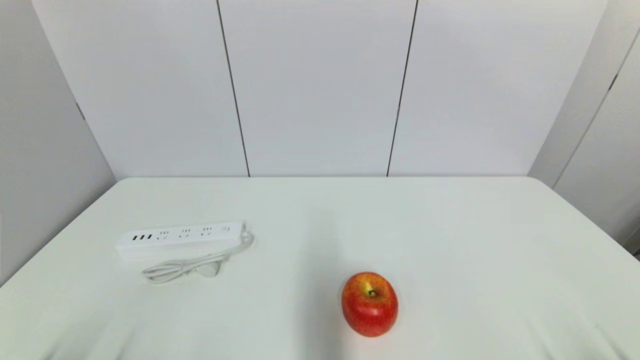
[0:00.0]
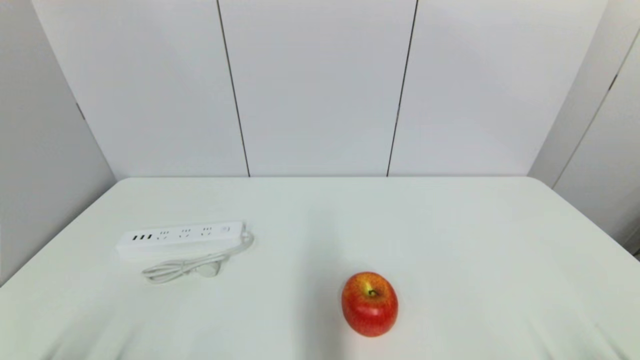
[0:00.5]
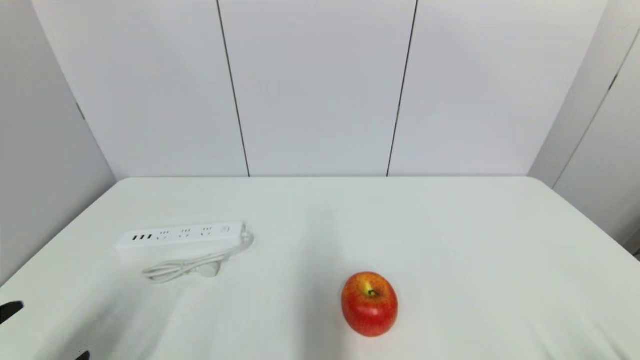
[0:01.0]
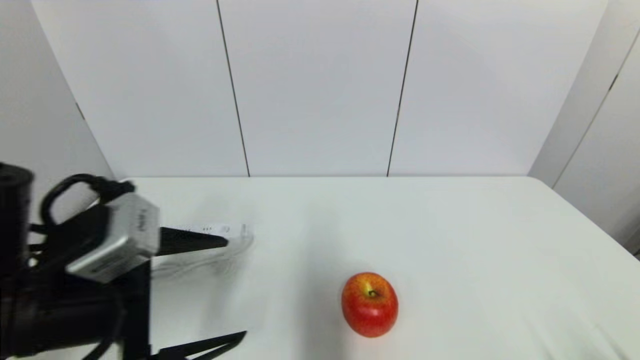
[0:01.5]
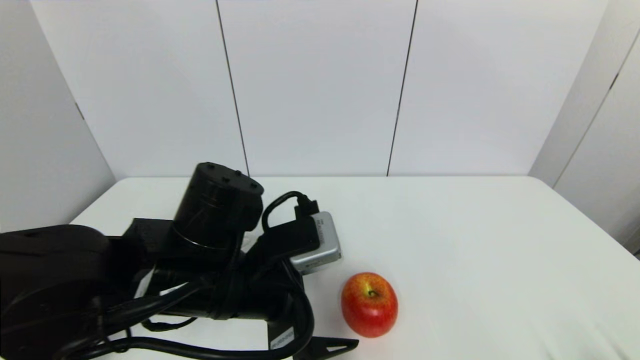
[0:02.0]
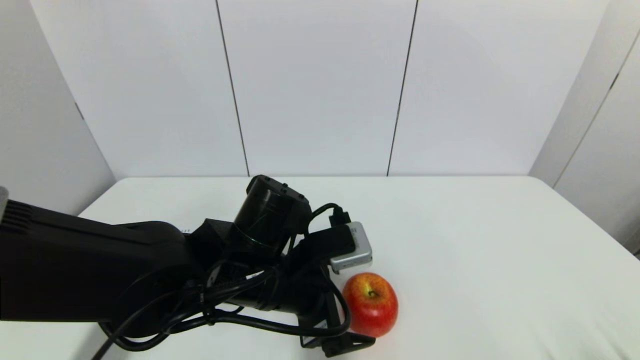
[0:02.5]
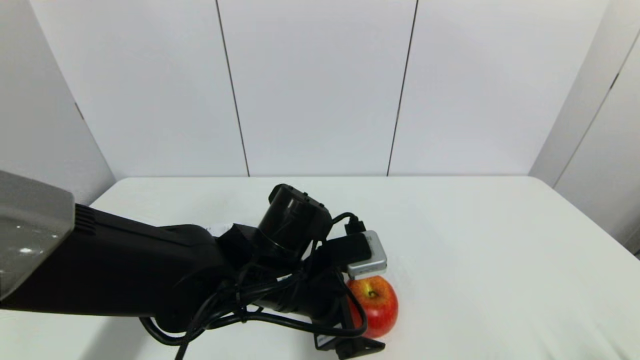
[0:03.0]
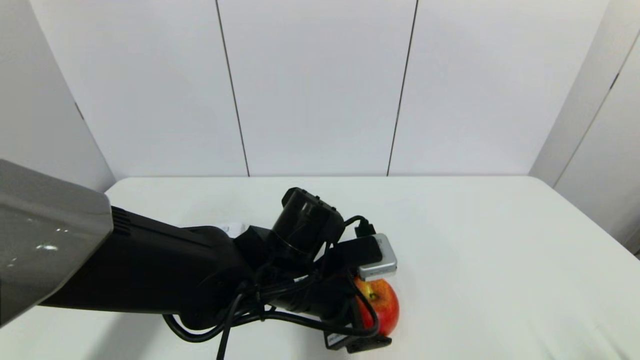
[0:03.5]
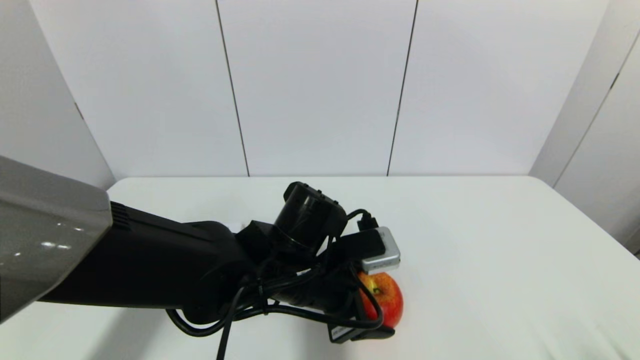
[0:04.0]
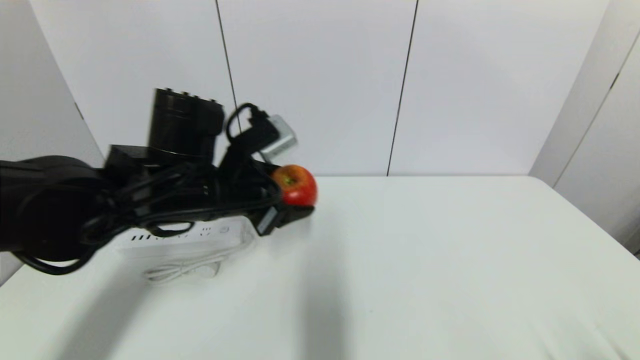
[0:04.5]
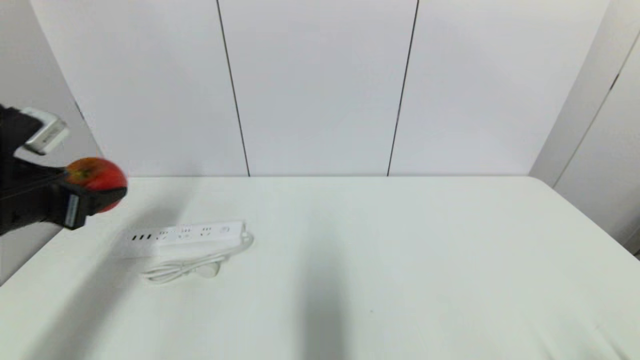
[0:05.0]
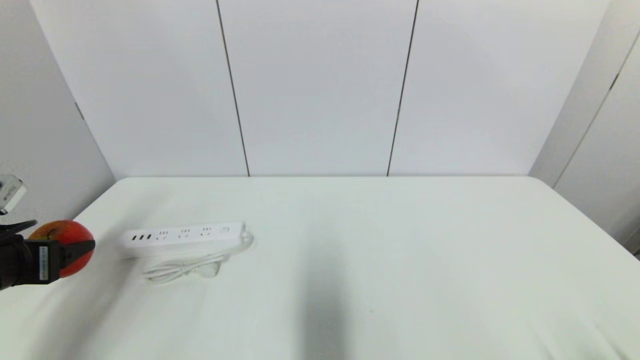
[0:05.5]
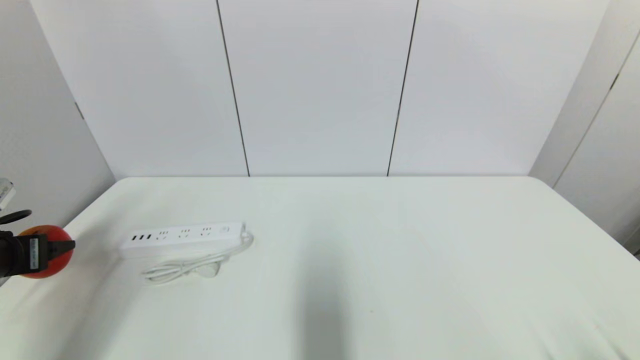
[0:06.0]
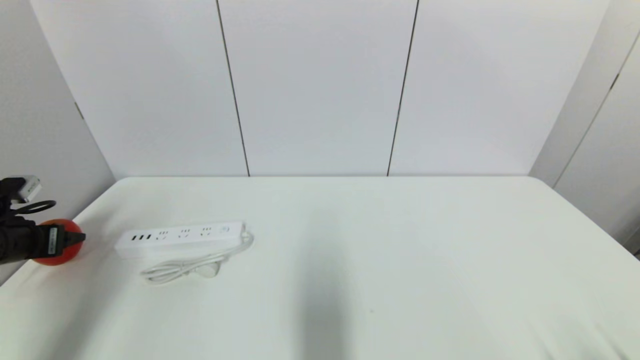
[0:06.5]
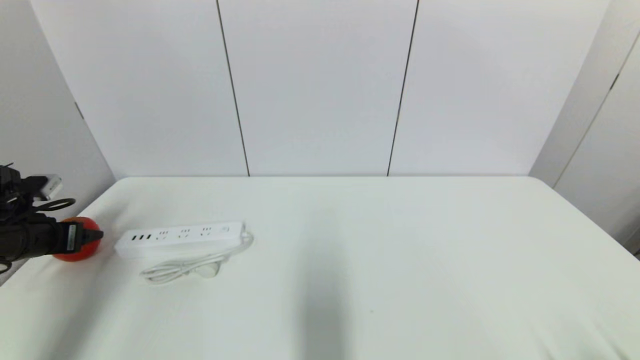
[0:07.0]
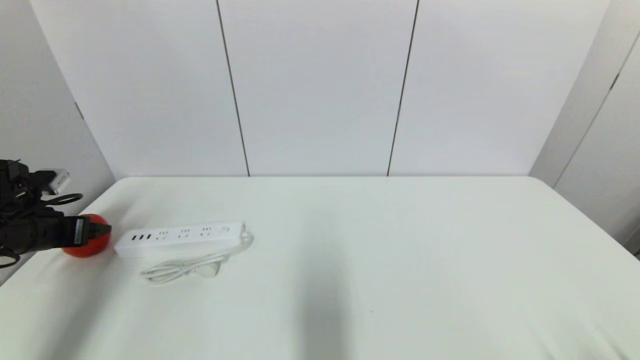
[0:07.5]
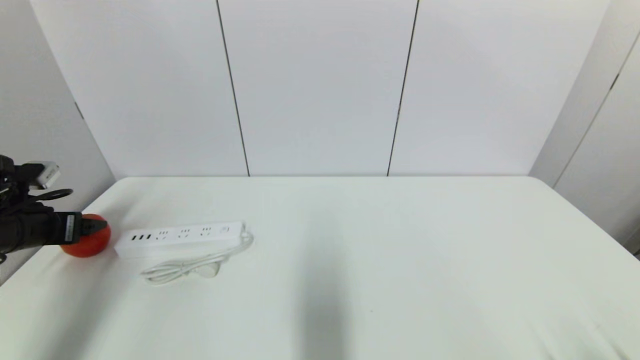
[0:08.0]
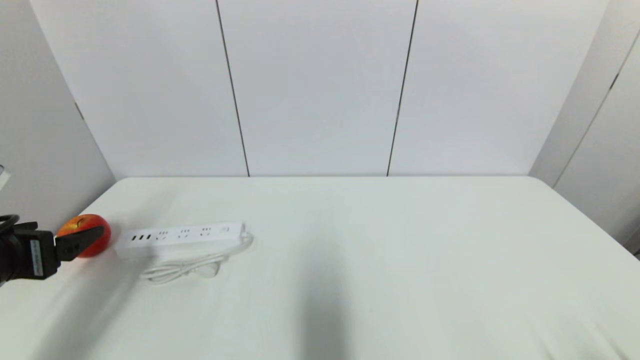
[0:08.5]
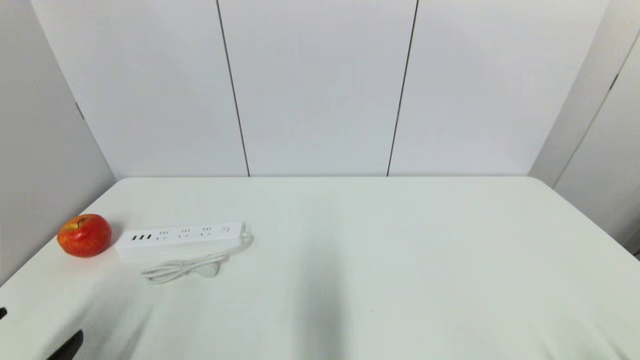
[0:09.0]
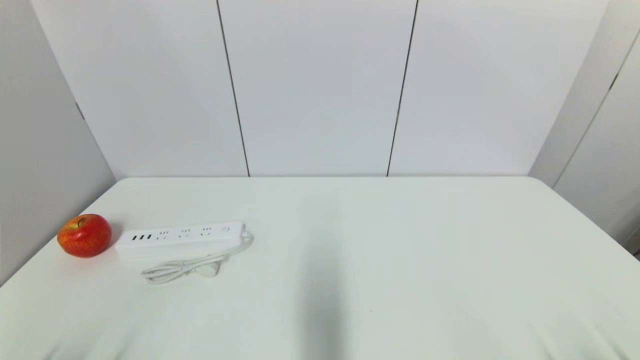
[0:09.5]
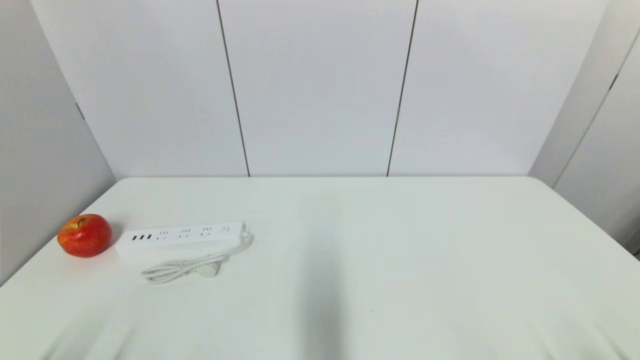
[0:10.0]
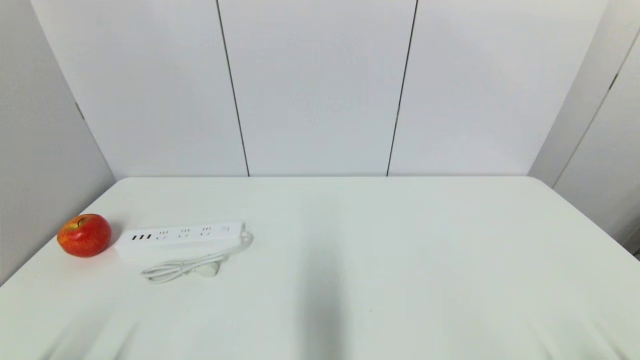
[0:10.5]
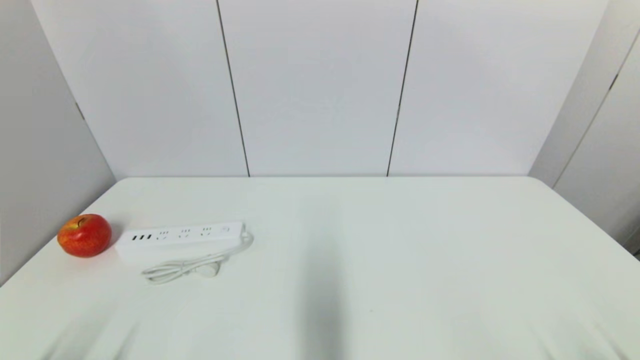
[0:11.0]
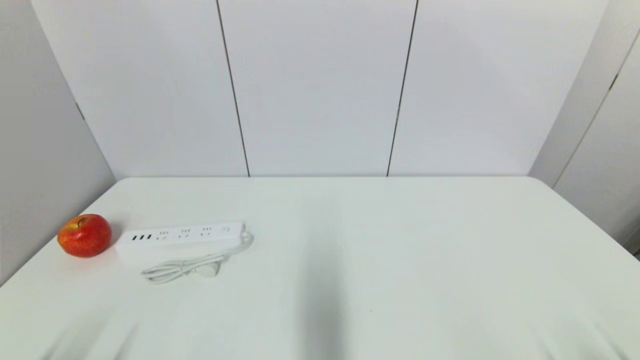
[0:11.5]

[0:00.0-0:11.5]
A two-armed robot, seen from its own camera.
Task of the whole recording: put the apple in the designated position.
Step, 0:01.0 to 0:03.5: Grasp the apple with left gripper.
Step, 0:04.0 to 0:08.5: Place the apple on the table with left gripper.
0:00.0 to 0:02.0: The left gripper travels to the right, forward and upward by roughly 30 cm.
0:02.0 to 0:04.0: The left gripper shifts about 5 cm to the right, and closes its fingers.
0:04.0 to 0:06.0: The left gripper goes about 40 cm to the left.
0:06.0 to 0:07.5: The left gripper is displaced forward by some 10 cm, and opens up.
0:07.5 to 0:09.5: The left gripper goes roughly 30 cm backward, and opens its fingers.
0:09.5 to 0:11.5: The two grippers keep their place.

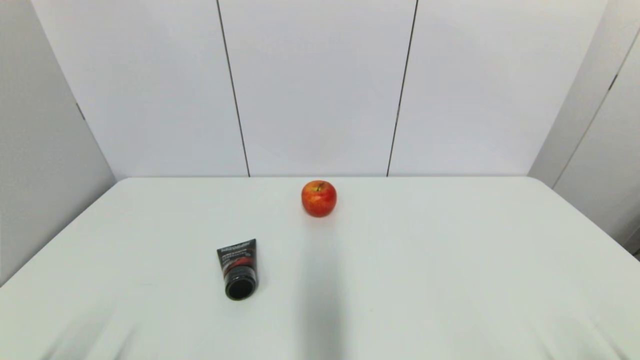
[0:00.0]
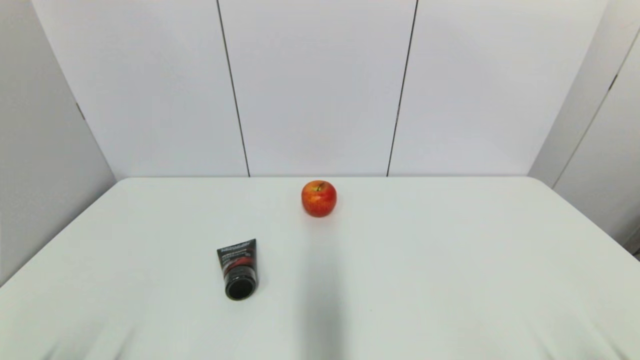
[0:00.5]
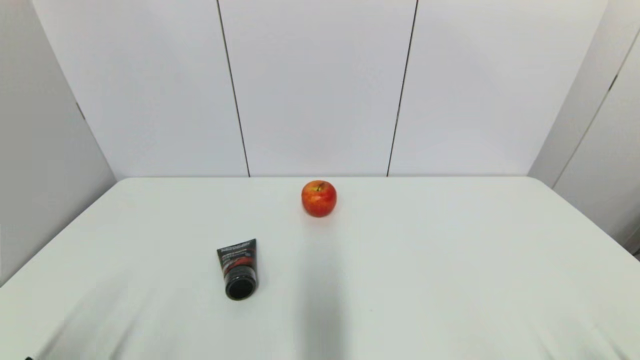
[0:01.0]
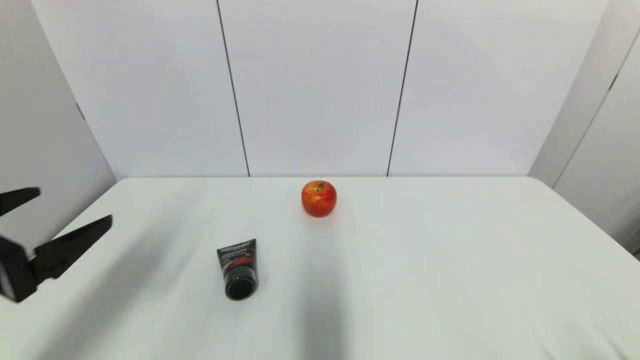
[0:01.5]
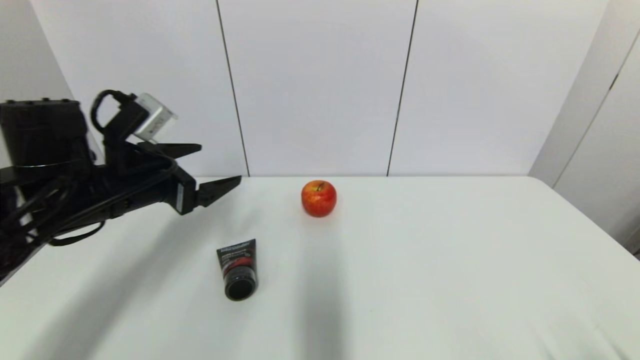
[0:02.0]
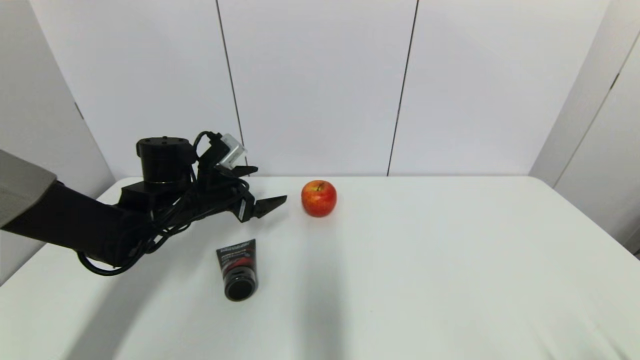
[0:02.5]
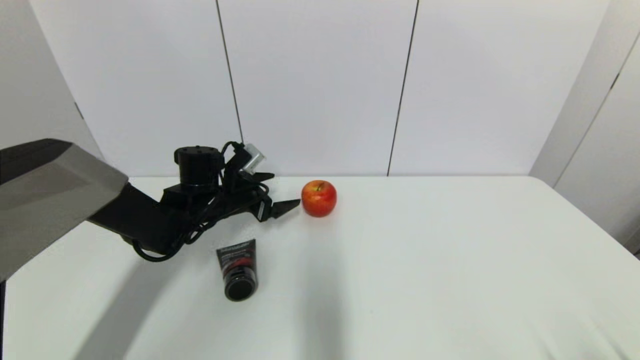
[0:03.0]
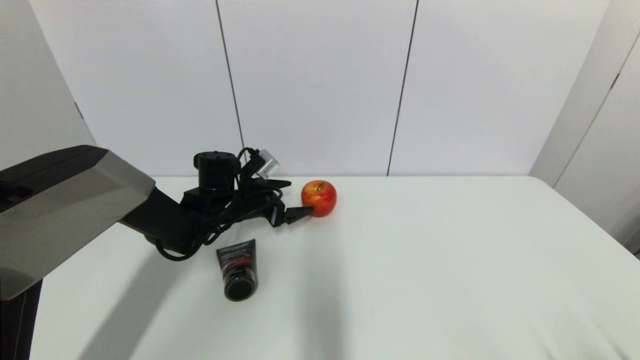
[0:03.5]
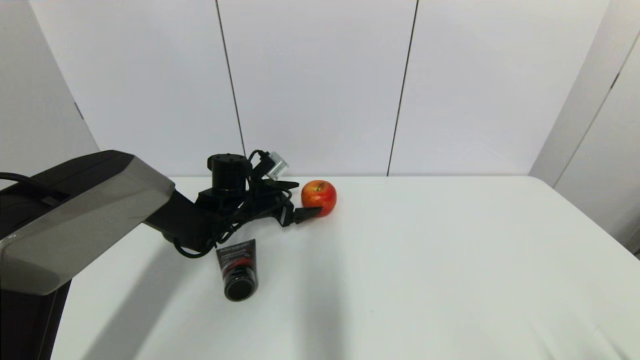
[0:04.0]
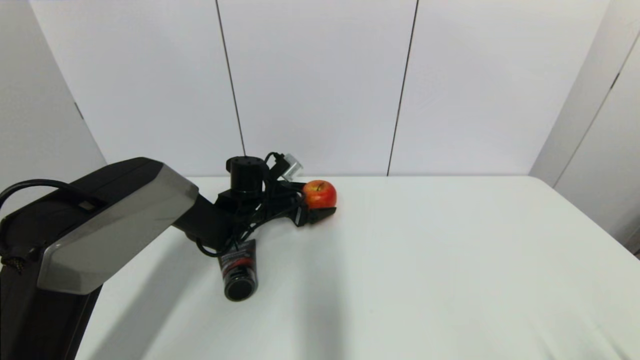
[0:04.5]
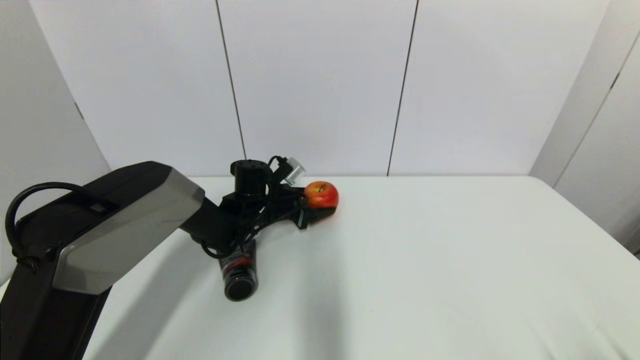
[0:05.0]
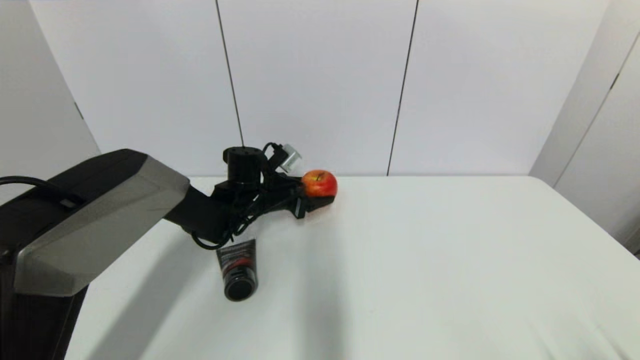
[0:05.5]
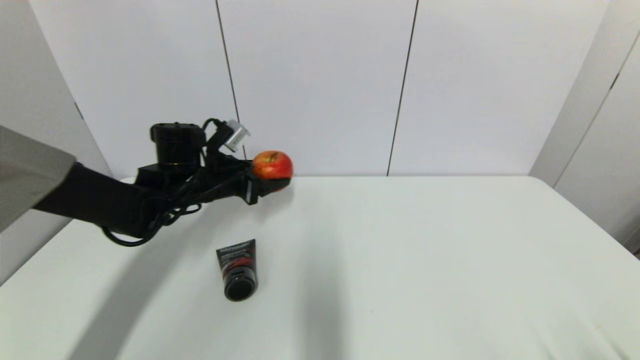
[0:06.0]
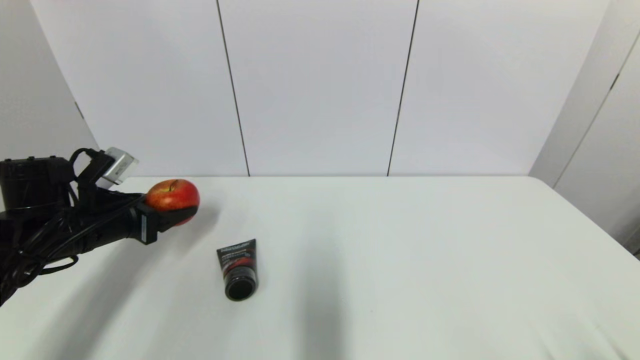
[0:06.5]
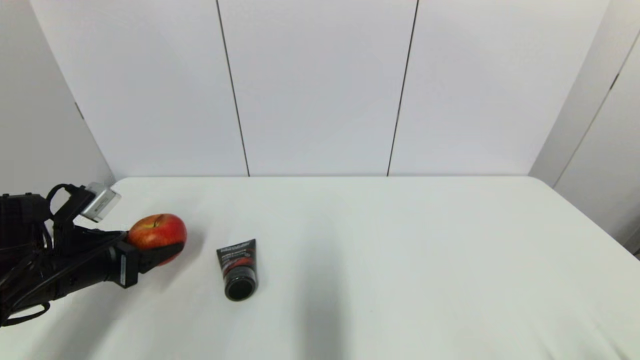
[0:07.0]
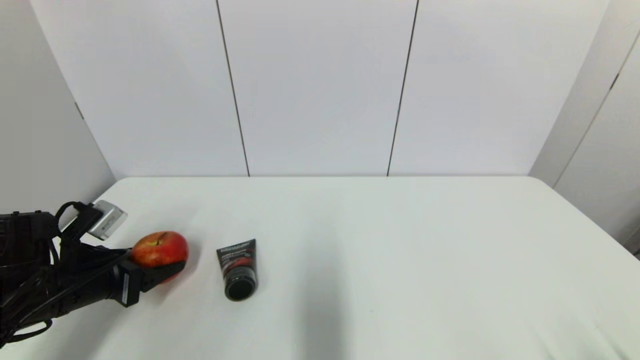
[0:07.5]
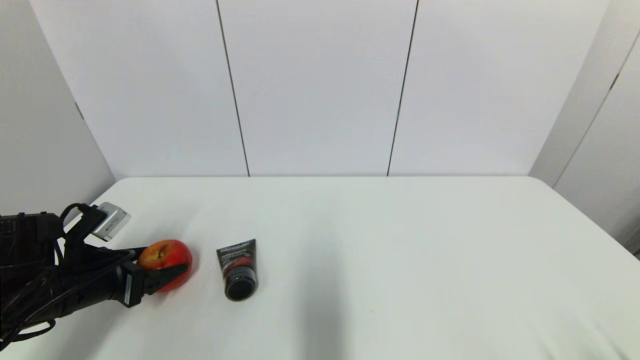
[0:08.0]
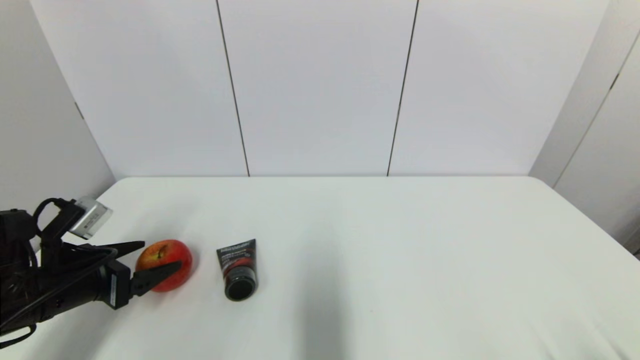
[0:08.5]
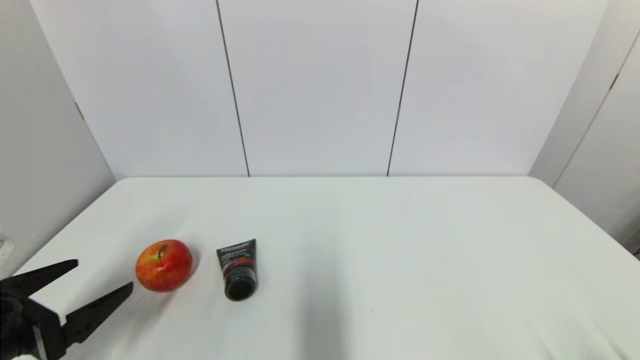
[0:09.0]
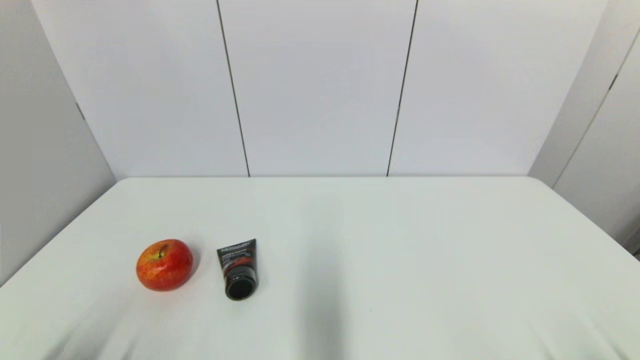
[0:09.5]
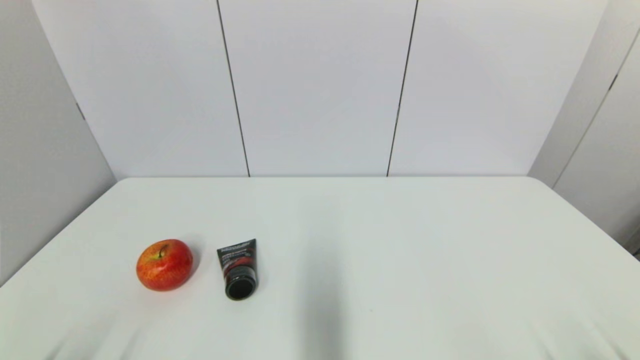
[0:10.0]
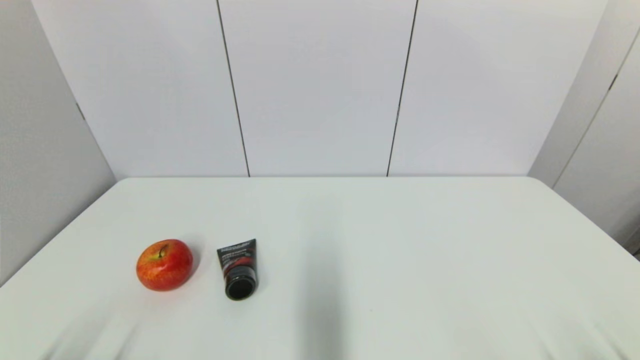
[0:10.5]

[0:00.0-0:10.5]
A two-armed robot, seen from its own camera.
Task of the whole recording: put the apple in the designated position.
Step, 0:01.0 to 0:04.5: Grasp the apple with left gripper.
Step, 0:05.5 to 0:08.5: Place the apple on the table with left gripper.
0:00.0 to 0:02.0: The left gripper is displaced forward and upward by approximately 30 cm.
0:02.0 to 0:04.0: The left gripper travels forward, downward and to the right by some 20 cm.
0:04.0 to 0:06.5: The left gripper goes roughly 20 cm to the left and backward, and closes its fingers.
0:06.5 to 0:08.5: The left gripper heads backward, covering some 5 cm, and opens up.
0:08.5 to 0:10.5: The left gripper heads backward, covering some 20 cm.
